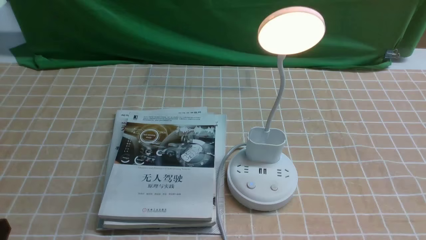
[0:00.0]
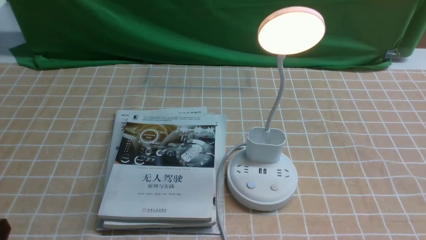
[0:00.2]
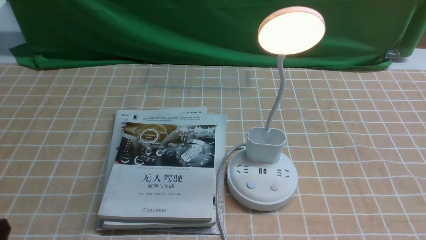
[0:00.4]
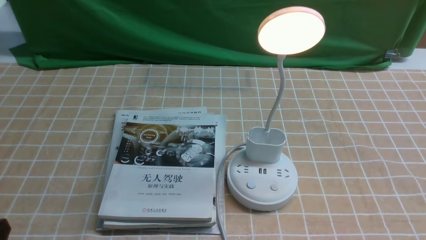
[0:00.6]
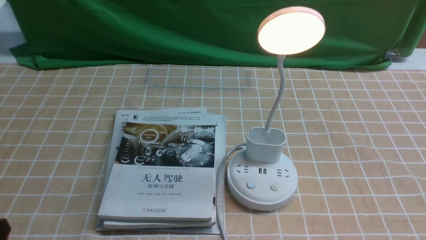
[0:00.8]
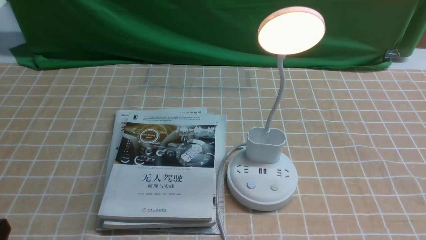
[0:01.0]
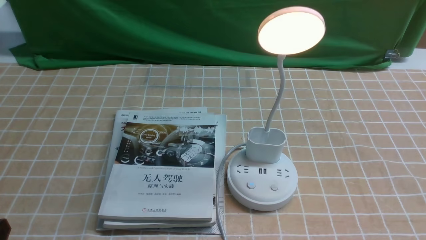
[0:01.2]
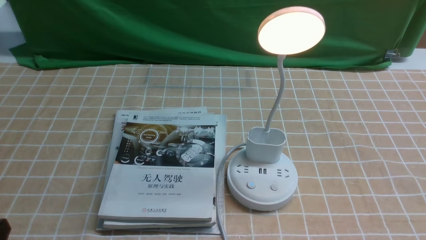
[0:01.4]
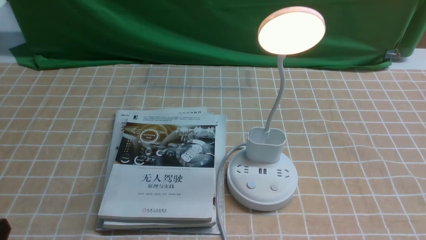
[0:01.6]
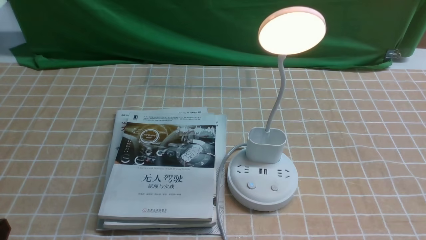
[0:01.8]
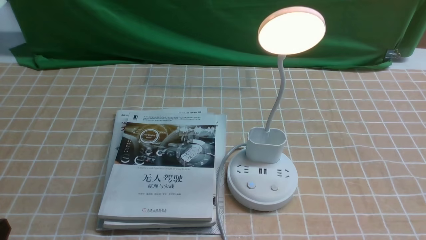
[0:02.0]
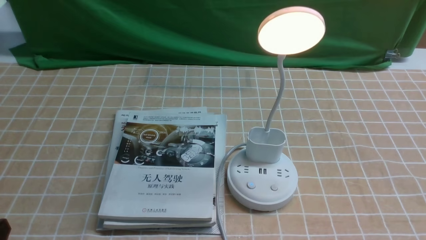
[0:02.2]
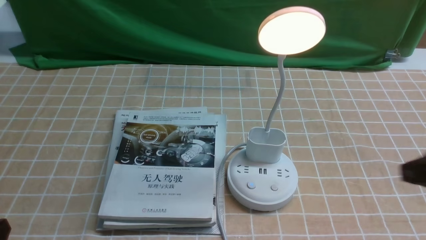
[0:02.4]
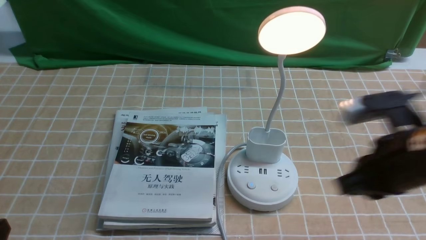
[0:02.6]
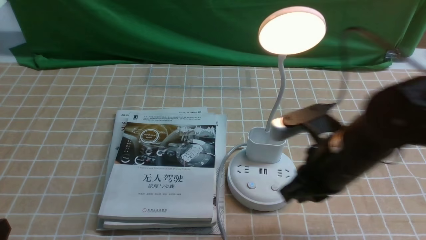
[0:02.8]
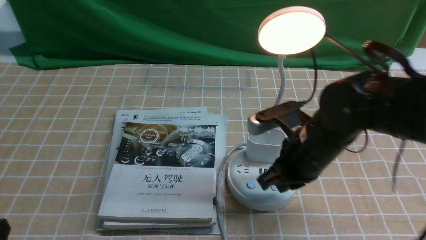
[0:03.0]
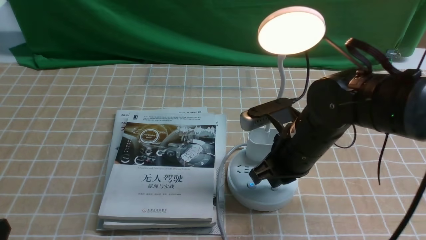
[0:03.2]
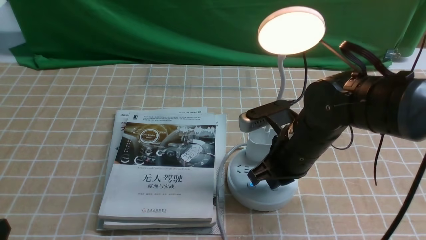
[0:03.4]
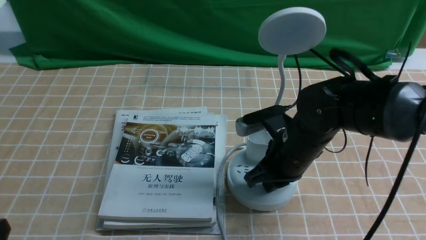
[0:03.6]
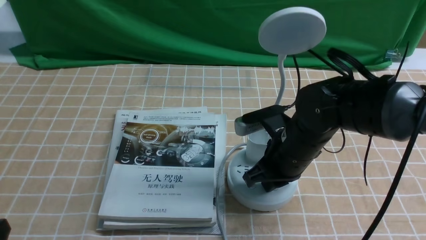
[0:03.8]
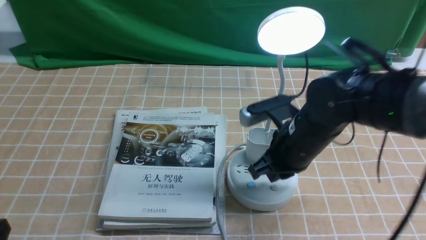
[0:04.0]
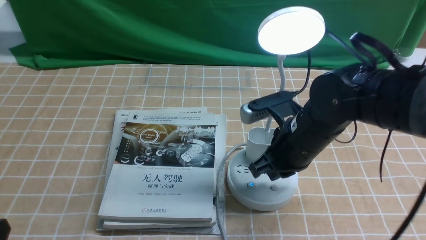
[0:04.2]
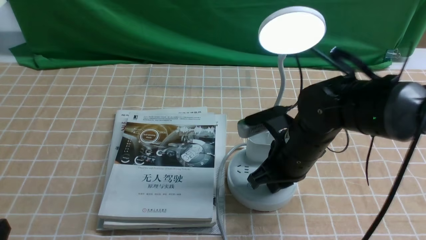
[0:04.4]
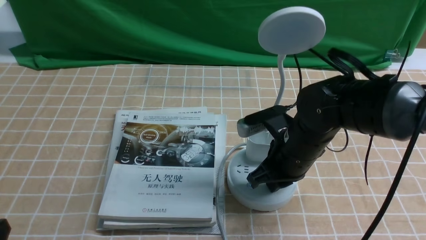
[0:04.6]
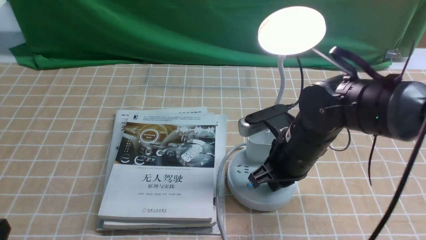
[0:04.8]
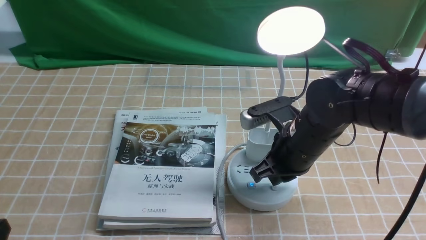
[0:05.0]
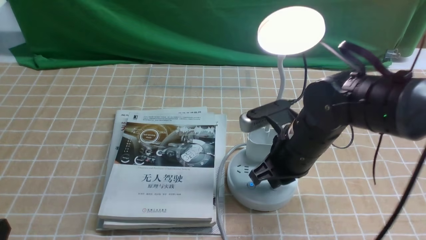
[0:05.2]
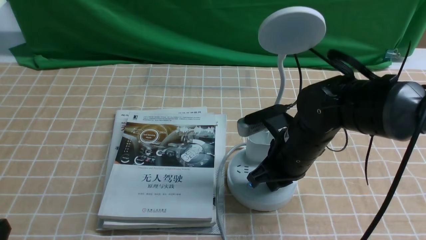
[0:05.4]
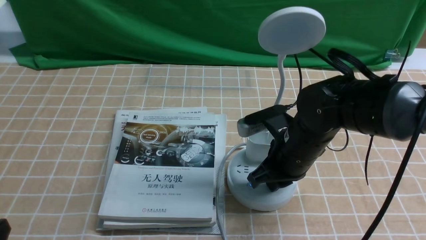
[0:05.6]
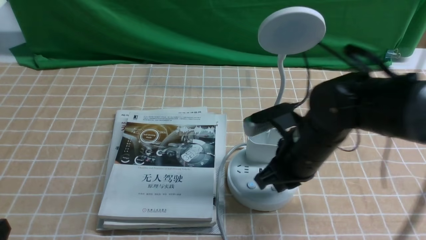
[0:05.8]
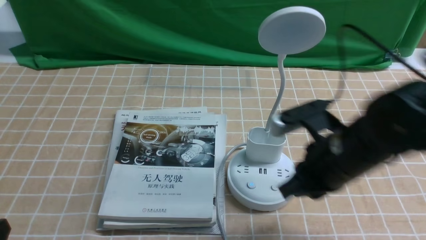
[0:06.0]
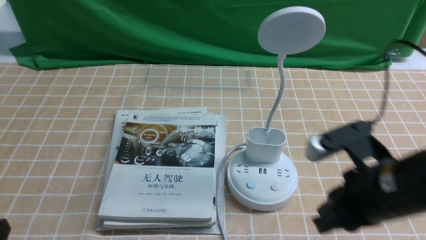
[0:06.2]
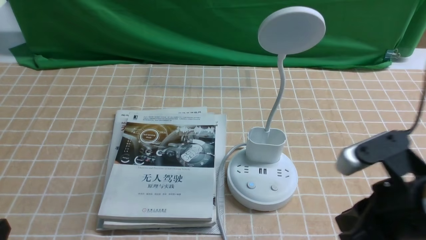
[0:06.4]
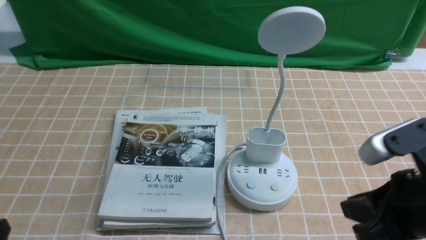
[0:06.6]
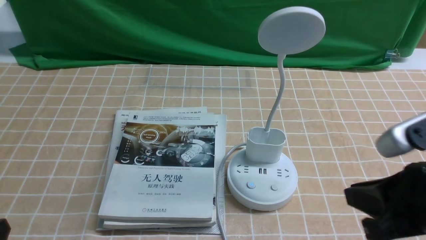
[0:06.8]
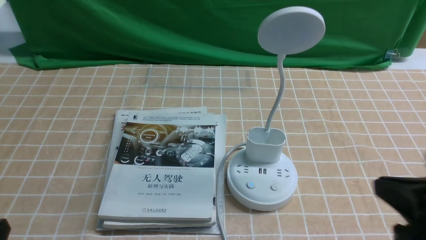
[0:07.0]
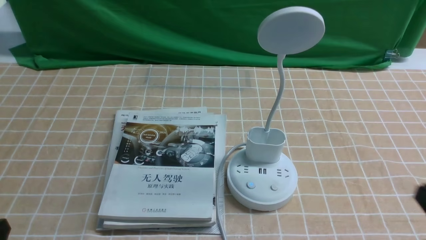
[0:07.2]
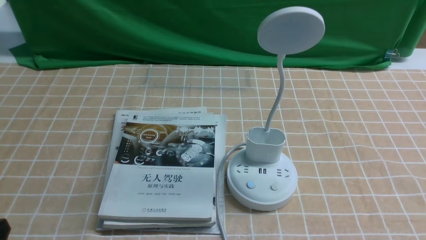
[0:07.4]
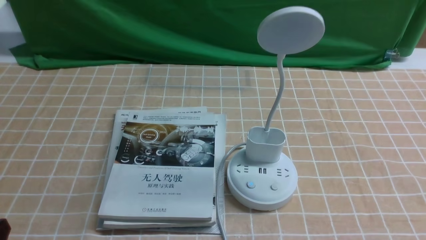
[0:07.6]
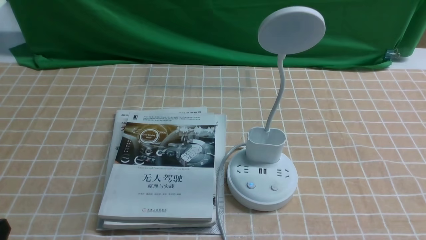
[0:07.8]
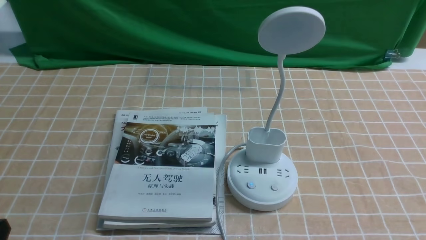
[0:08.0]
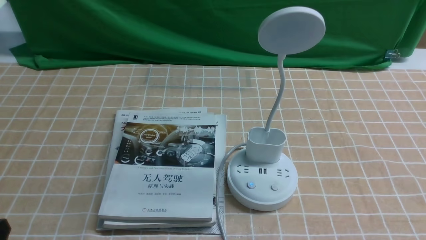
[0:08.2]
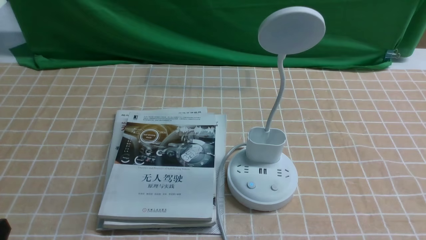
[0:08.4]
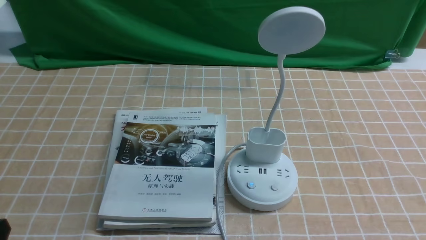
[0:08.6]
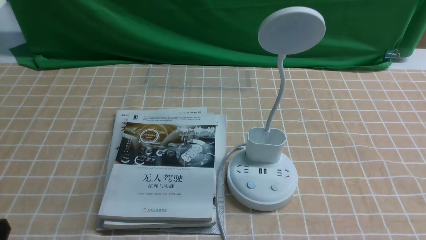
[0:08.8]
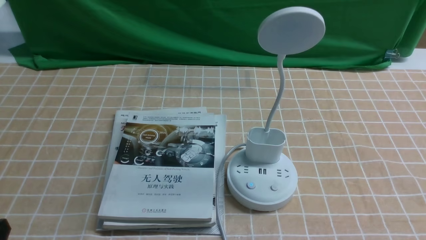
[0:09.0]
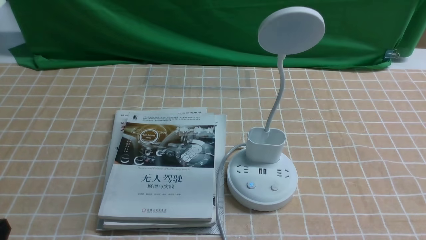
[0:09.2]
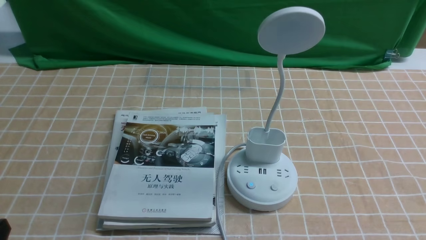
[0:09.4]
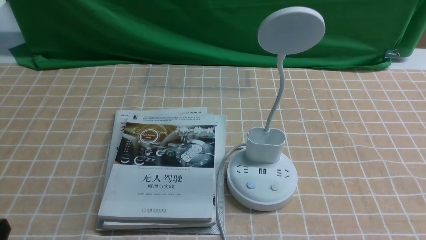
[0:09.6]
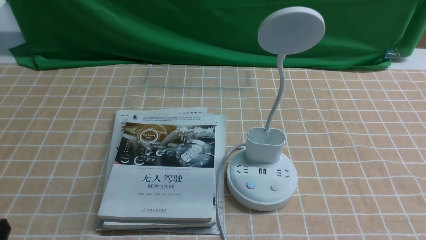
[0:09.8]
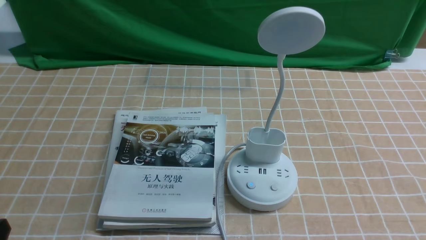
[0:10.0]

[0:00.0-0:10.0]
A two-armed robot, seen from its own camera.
Task of the whole recording: turn off the desk lamp on the light coffee tablecloth by hand.
Step, 0:00.0 to 0:05.8: use the right arm to press the button switch on the lamp holder.
0:01.4 to 0:02.8: The right gripper heads forward and to the left, covering some 25 cm, and closes.
0:02.8 to 0:04.2: The right gripper moves roughly 5 cm.
0:04.2 to 0:05.8: There are only small adjustments of the grippers.
0:05.8 to 0:07.2: The right gripper travels backward and to the right by approximately 25 cm.

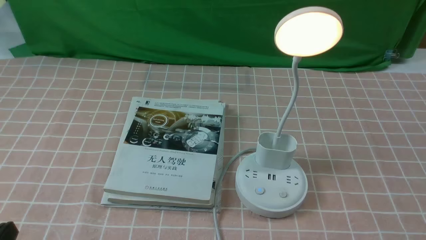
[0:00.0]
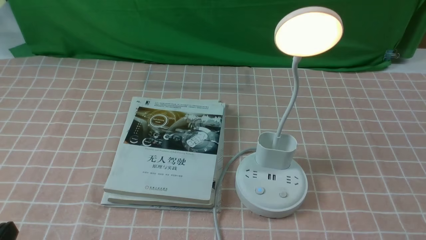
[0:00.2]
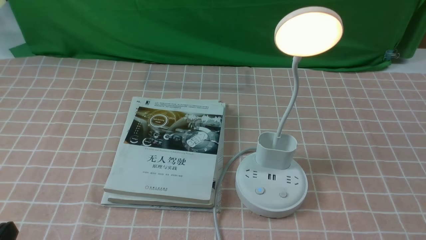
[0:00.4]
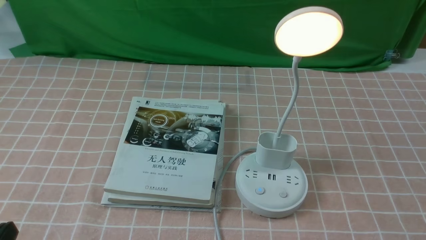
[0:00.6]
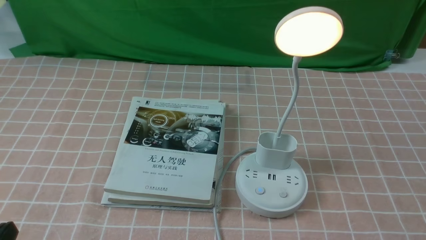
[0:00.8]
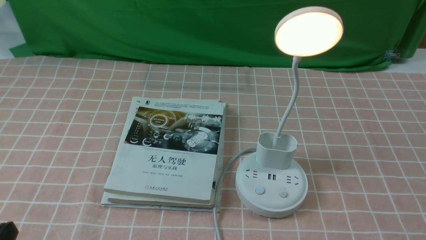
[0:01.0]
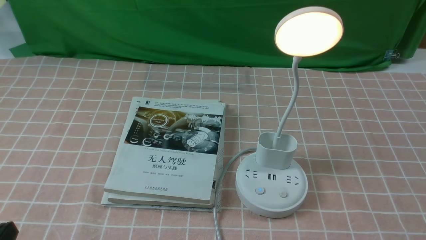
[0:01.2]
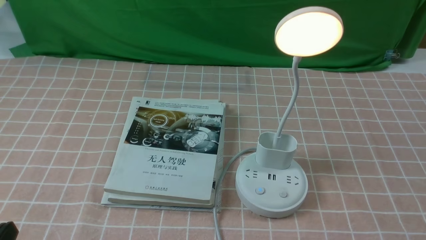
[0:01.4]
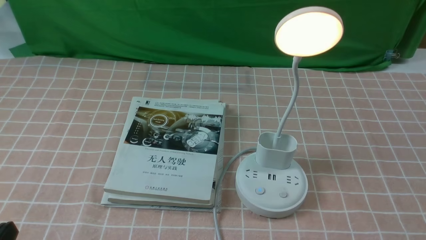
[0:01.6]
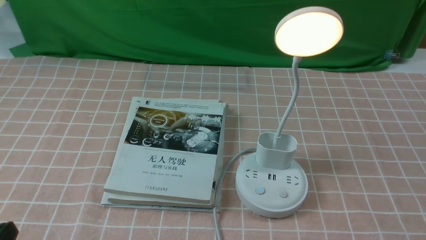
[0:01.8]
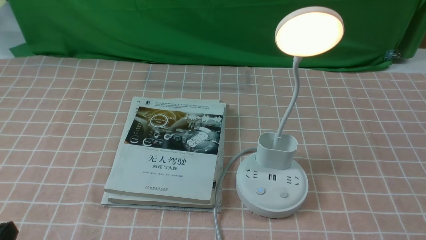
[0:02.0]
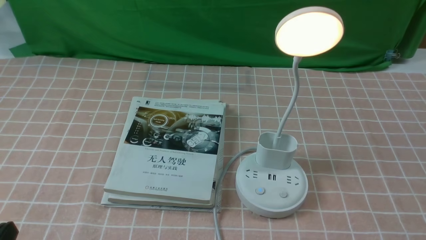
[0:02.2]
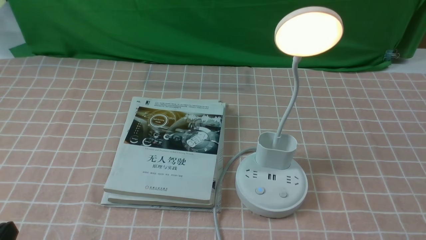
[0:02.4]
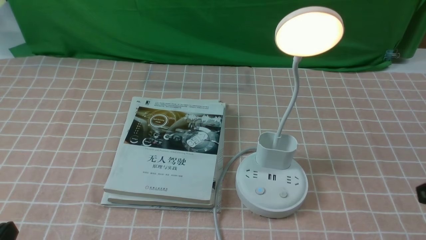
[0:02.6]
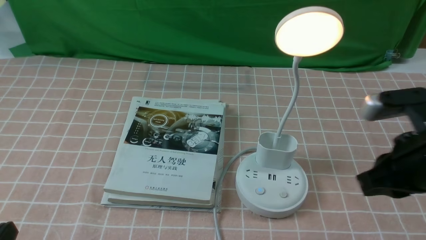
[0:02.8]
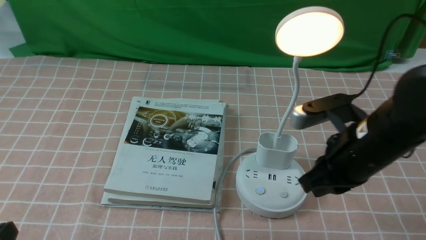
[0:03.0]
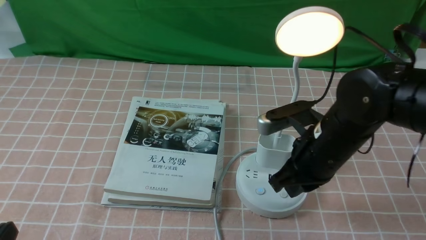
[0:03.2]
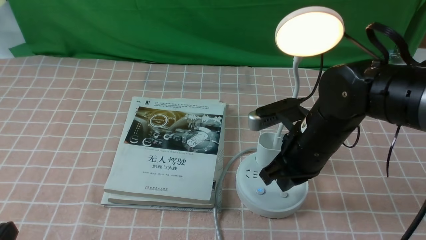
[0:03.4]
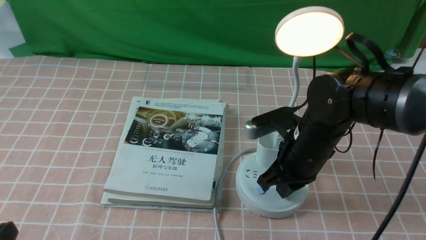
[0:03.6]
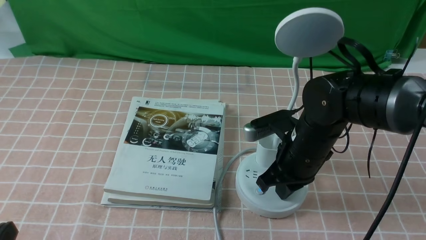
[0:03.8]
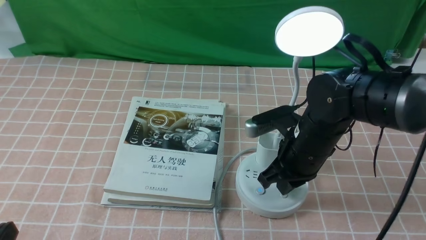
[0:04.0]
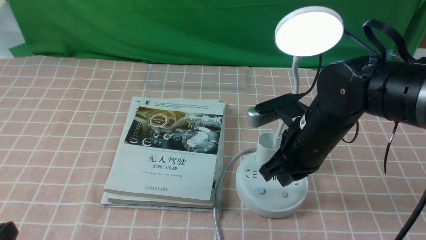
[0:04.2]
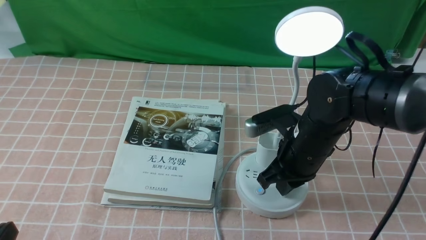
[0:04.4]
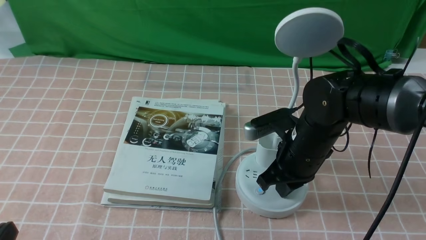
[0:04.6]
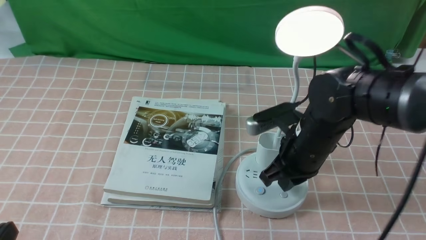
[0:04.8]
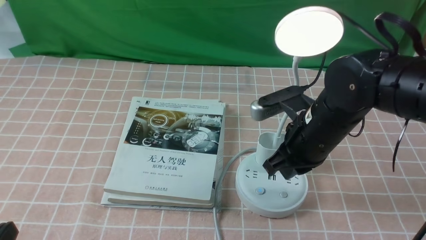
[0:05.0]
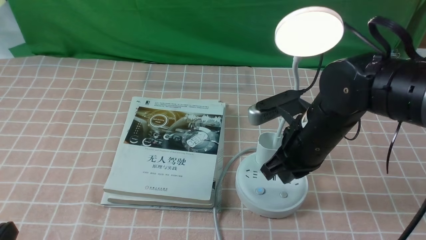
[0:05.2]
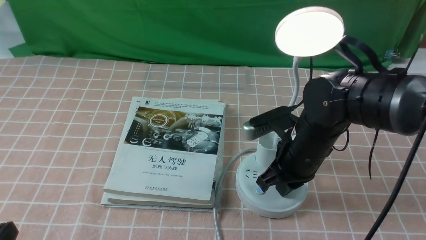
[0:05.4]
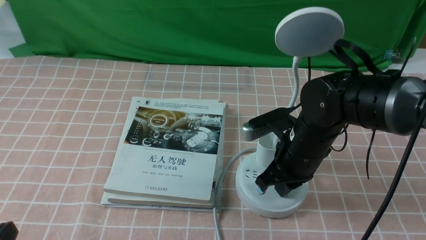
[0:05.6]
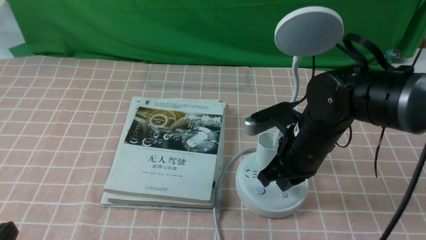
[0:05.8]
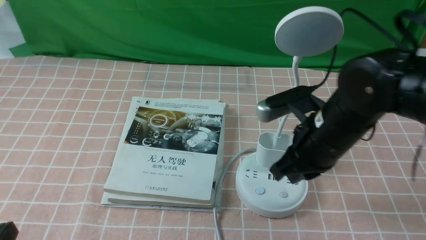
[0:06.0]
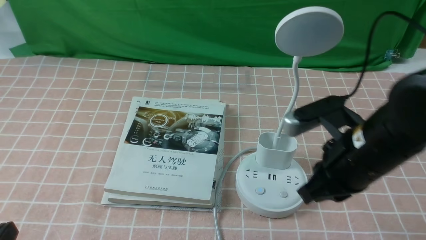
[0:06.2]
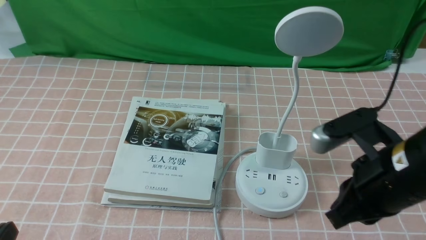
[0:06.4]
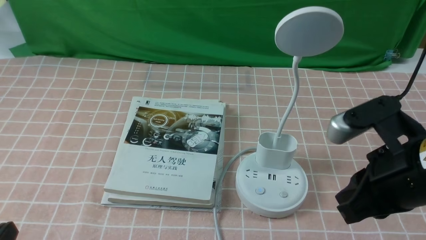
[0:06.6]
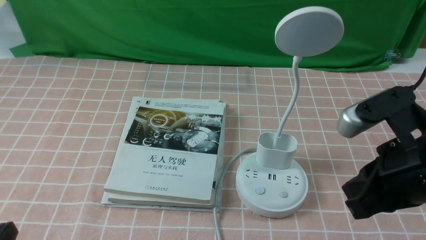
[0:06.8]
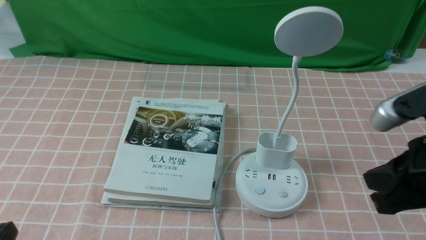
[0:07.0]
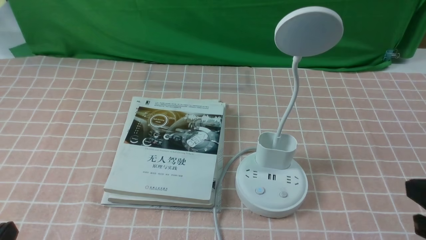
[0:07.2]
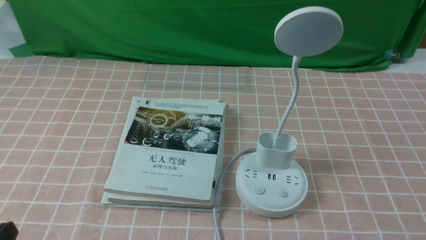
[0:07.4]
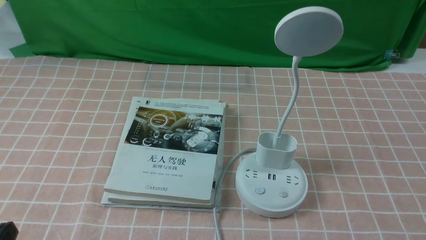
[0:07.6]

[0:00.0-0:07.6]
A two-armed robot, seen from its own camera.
Task of the whole recording: turn off the table lamp on the pink coffee tablecloth by hand.
Step, 0:00.0 to 0:05.8: use the right arm to press the button switch on the lamp holder.
0:01.6 to 0:03.0: The right gripper goes roughly 25 cm forward and to the left, and closes up.
0:03.0 to 0:04.6: The right gripper moves downward and to the left, approximately 10 cm.
0:04.6 to 0:06.0: The right gripper heads upward, covering roughly 5 cm.
0:06.0 to 0:07.6: The right gripper goes some 25 cm backward and to the right.
